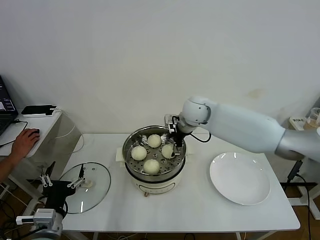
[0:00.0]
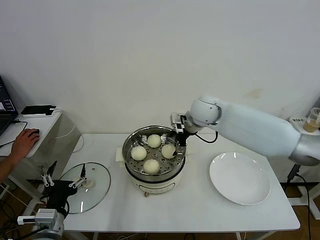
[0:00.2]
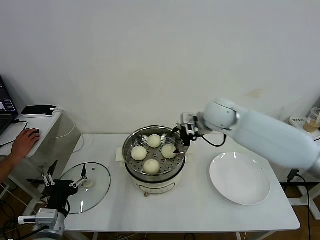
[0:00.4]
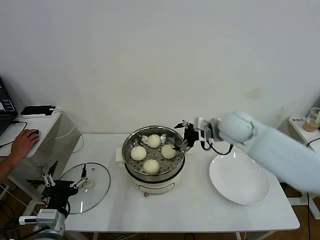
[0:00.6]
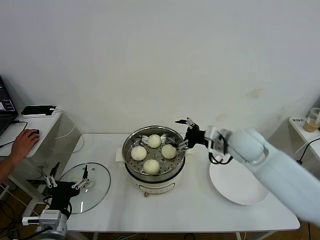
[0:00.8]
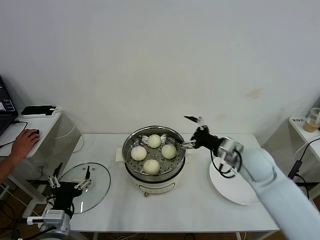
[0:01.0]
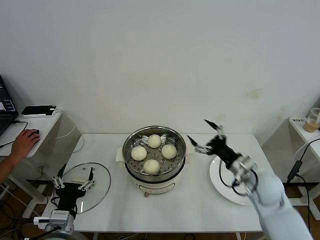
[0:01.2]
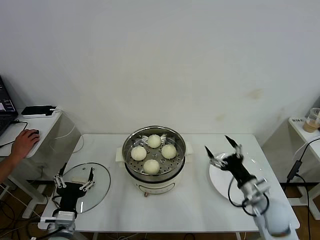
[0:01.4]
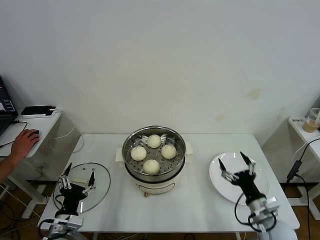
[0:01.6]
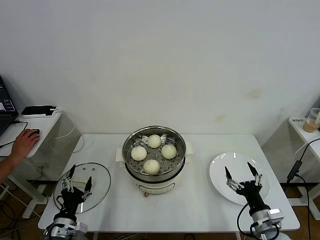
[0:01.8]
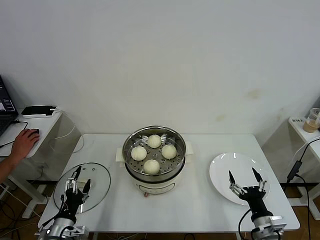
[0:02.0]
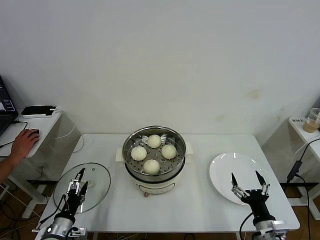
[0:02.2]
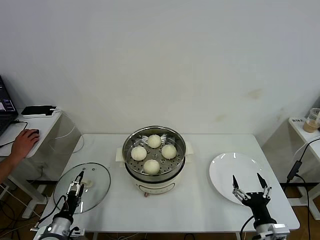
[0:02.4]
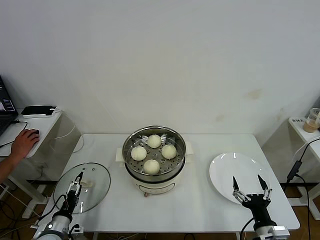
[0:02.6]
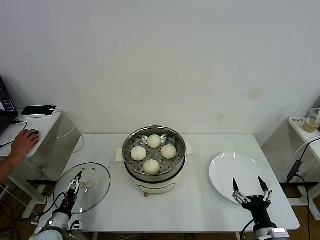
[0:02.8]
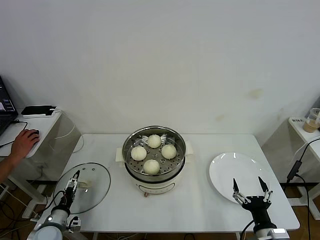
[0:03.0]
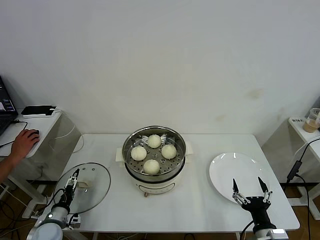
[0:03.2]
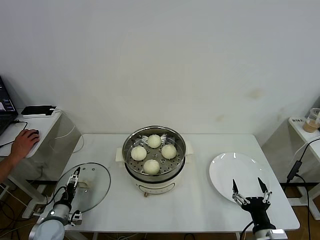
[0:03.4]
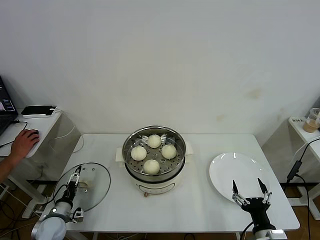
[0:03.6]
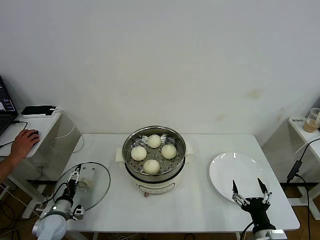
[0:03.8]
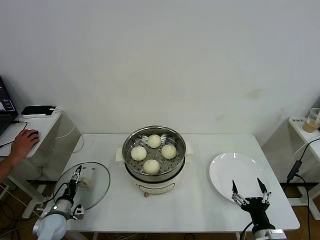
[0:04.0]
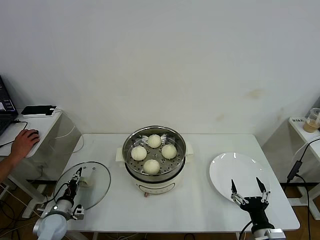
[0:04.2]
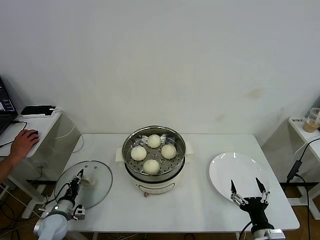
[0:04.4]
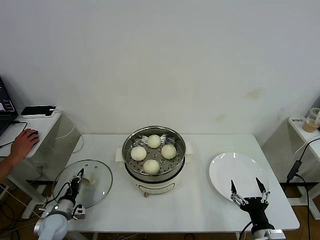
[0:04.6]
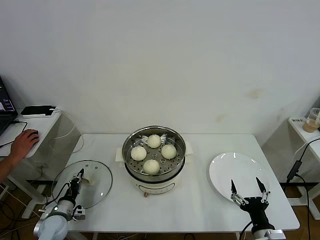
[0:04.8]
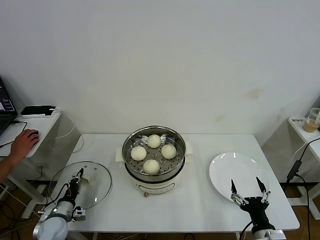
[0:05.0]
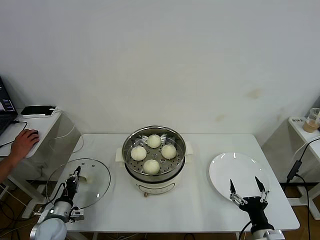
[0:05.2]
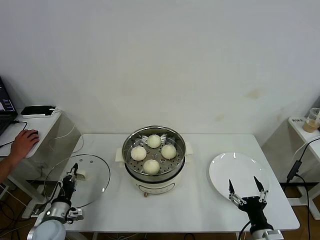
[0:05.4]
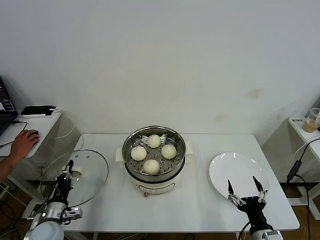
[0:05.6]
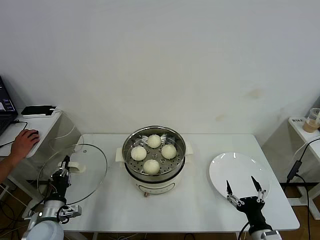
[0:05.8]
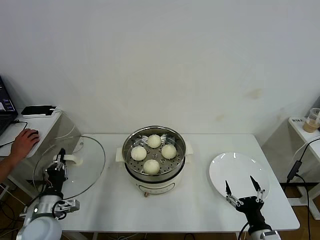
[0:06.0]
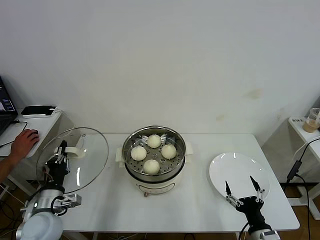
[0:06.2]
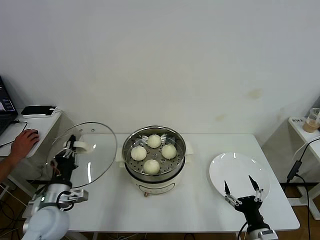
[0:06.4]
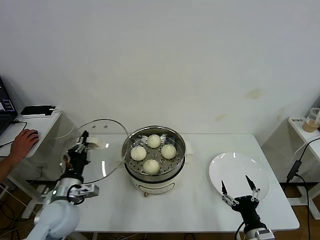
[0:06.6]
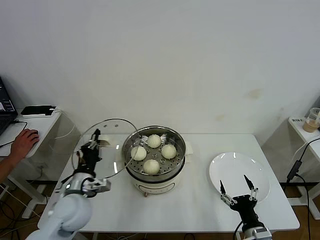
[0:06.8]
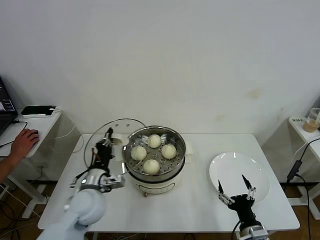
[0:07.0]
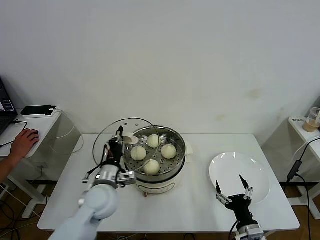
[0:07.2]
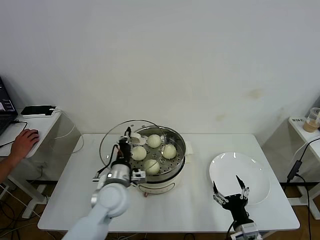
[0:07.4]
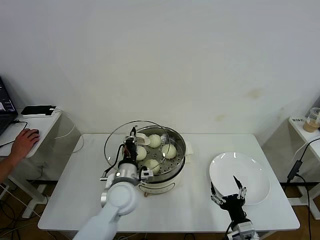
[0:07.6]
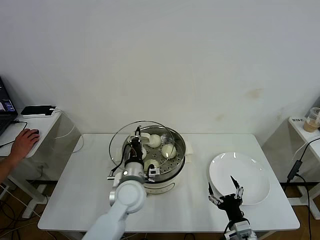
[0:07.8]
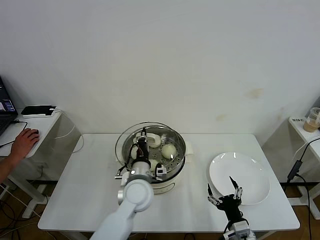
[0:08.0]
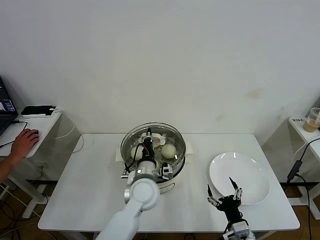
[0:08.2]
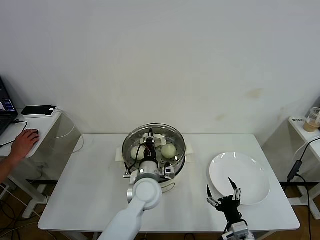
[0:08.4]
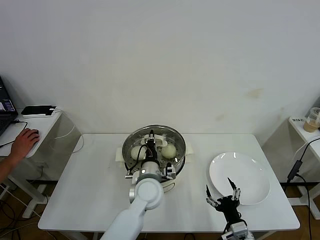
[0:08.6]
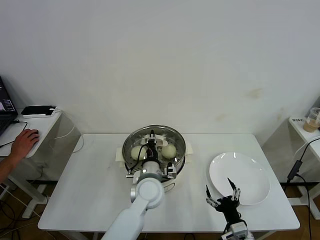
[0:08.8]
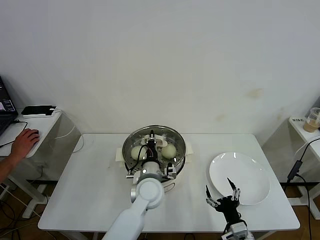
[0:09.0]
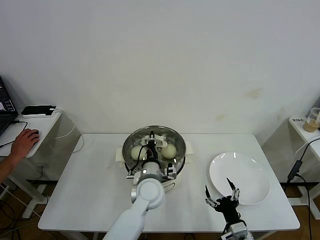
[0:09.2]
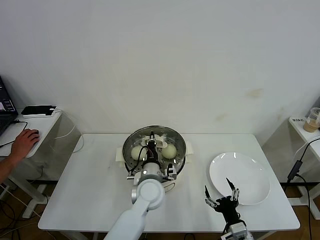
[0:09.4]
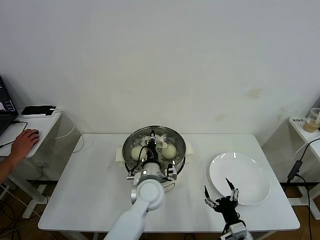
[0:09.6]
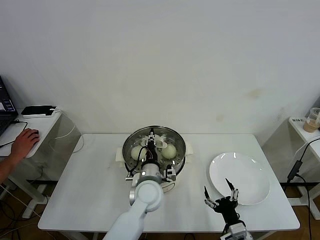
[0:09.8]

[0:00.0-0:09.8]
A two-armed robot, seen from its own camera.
Task of the whole recording: take steamed baozi put them in steamer then cover it.
Step, 0:00.0 to 0:04.0: Grasp the pot lid with left gripper.
Step, 0:04.2 to 0:09.8: Place the pot lid on the steamer with left gripper.
0:00.0 to 0:01.4: The right gripper is displaced backward, to the right and downward by approximately 40 cm; the left gripper ends up roughly 5 cm from where it was.
0:01.4 to 0:02.8: The left gripper is displaced downward and to the left by some 15 cm. The right gripper heads backward, covering roughly 15 cm.
0:02.8 to 0:04.2: The left gripper is displaced forward by approximately 5 cm, and closes its fingers.
0:04.2 to 0:05.6: The left gripper heads upward, covering some 5 cm, and closes.
0:05.6 to 0:07.0: The left gripper moves to the right and upward, approximately 20 cm.
0:07.0 to 0:08.4: The left gripper heads to the right, covering roughly 15 cm.
0:08.4 to 0:09.8: The left gripper opens its fingers.

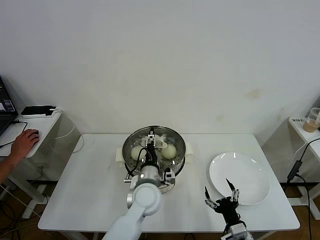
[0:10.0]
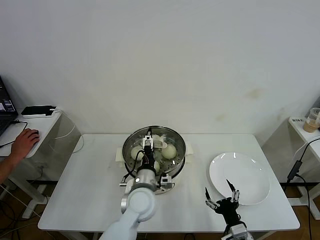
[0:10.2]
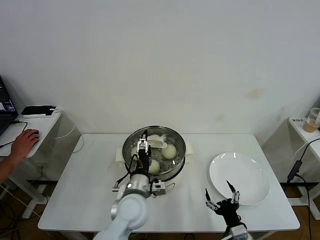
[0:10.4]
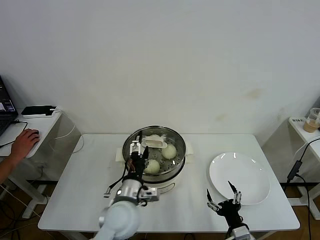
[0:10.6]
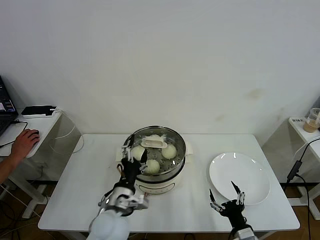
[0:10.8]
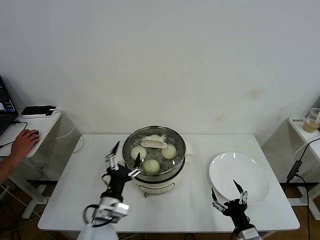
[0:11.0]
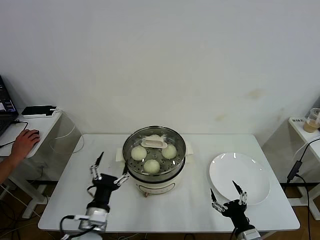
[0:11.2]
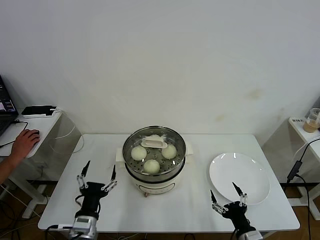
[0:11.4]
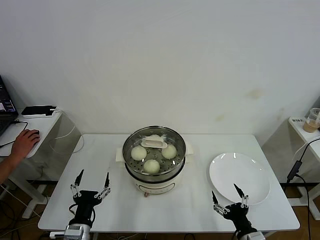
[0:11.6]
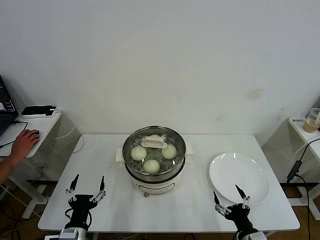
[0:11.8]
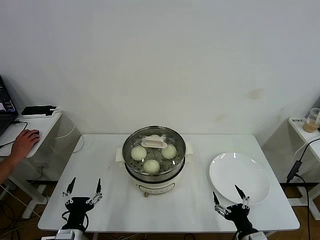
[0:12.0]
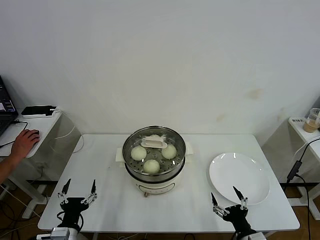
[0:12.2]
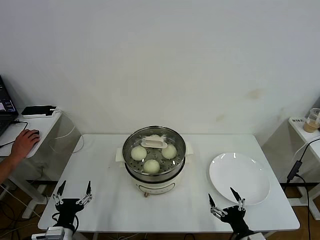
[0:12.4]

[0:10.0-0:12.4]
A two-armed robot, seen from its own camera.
Task of the whole recording: take steamed baozi put them in steamer then cover it.
0:10.0 to 0:11.2: The left gripper shifts roughly 20 cm to the left and backward, and opens its fingers.
0:11.2 to 0:12.4: The left gripper shifts some 15 cm to the left and downward.

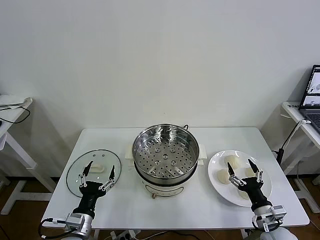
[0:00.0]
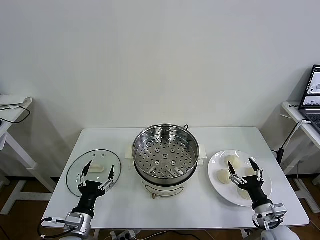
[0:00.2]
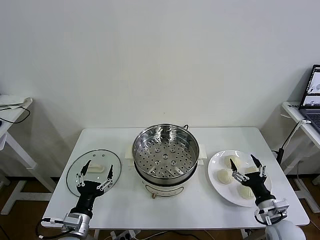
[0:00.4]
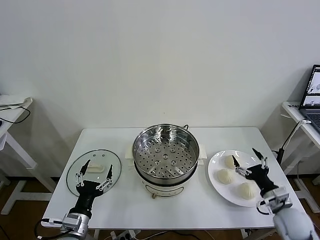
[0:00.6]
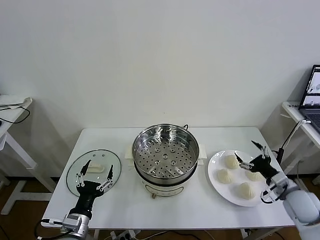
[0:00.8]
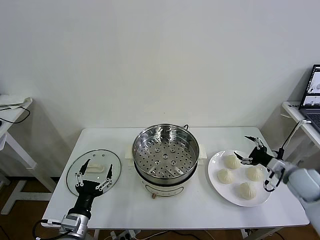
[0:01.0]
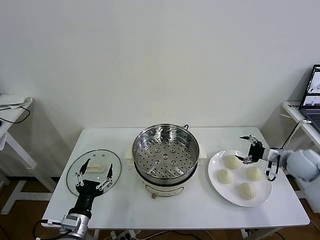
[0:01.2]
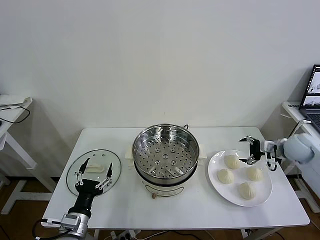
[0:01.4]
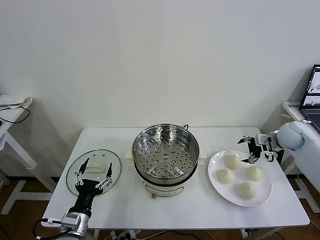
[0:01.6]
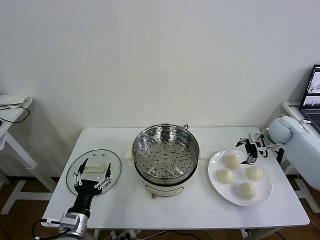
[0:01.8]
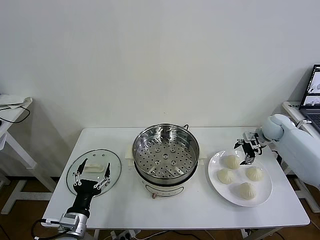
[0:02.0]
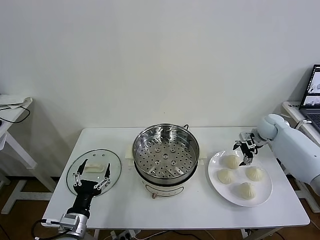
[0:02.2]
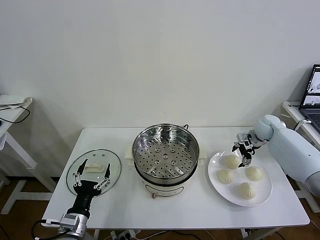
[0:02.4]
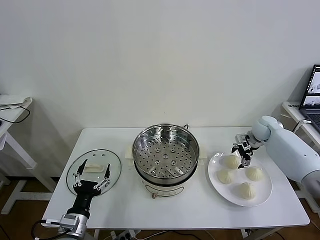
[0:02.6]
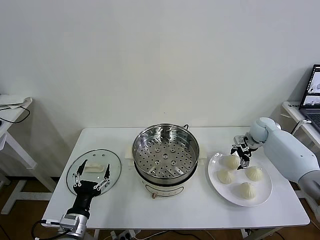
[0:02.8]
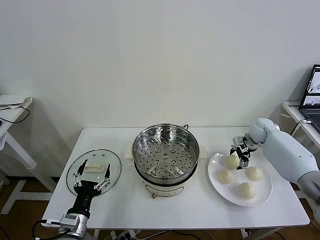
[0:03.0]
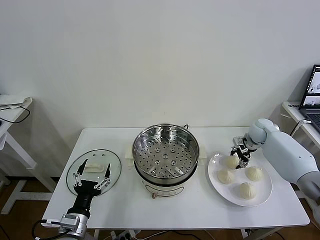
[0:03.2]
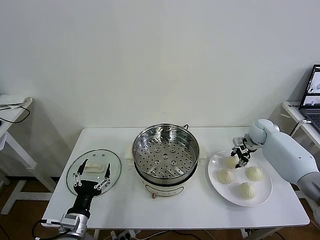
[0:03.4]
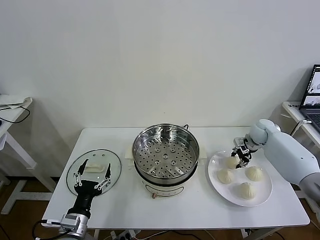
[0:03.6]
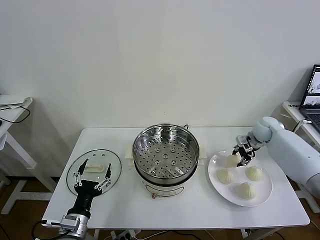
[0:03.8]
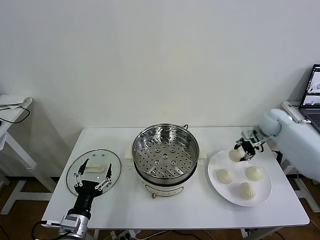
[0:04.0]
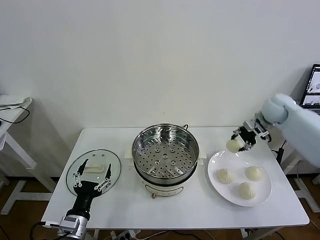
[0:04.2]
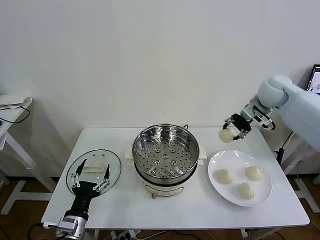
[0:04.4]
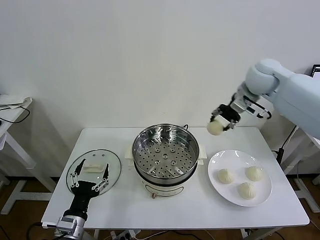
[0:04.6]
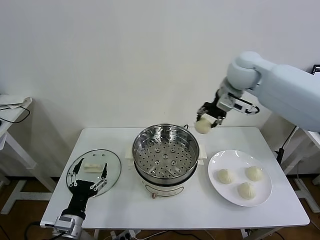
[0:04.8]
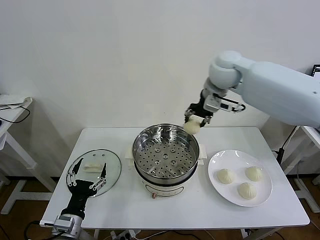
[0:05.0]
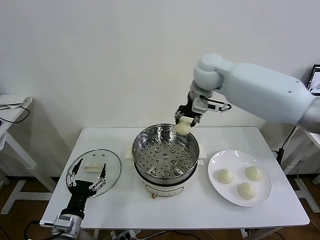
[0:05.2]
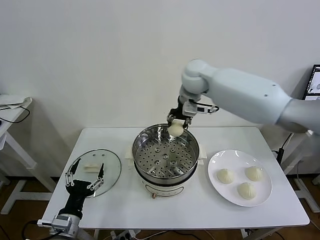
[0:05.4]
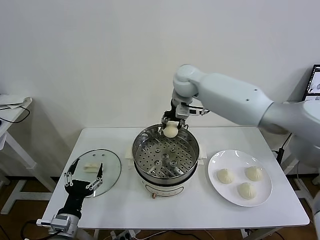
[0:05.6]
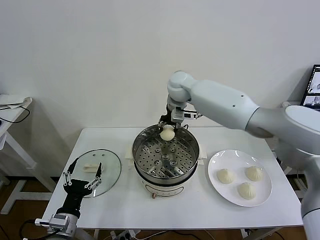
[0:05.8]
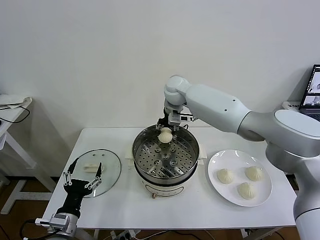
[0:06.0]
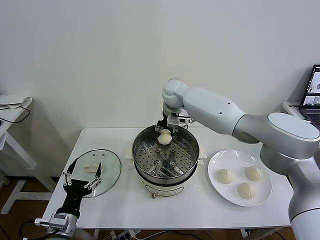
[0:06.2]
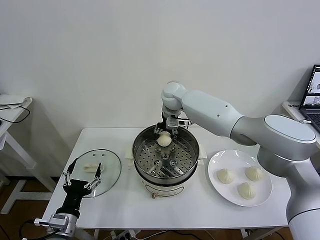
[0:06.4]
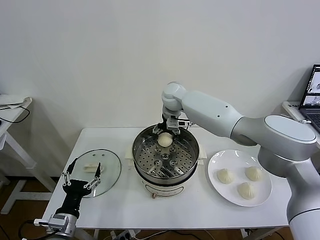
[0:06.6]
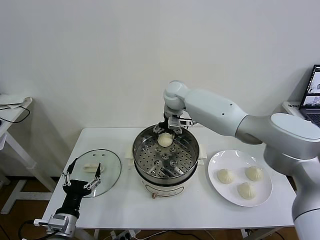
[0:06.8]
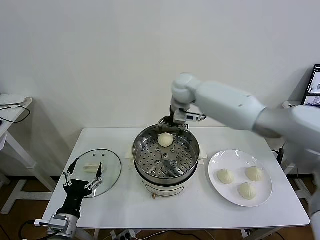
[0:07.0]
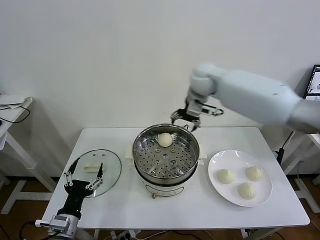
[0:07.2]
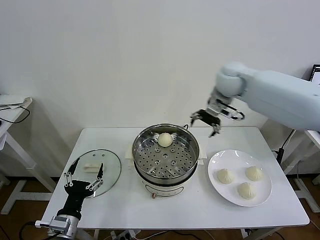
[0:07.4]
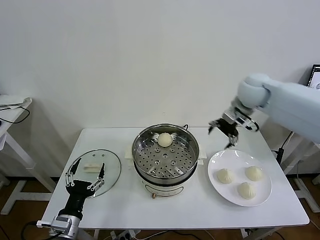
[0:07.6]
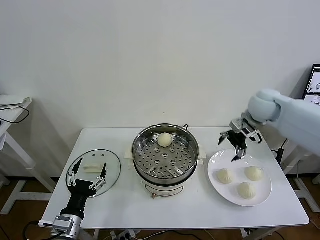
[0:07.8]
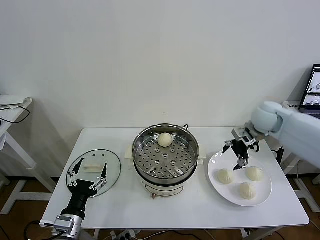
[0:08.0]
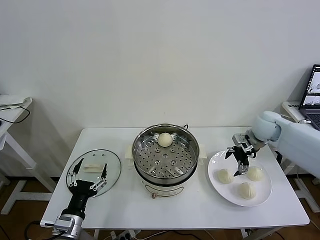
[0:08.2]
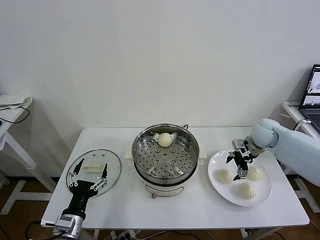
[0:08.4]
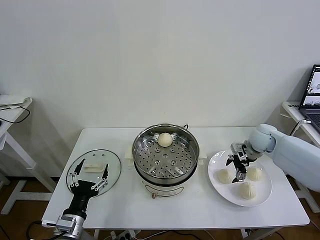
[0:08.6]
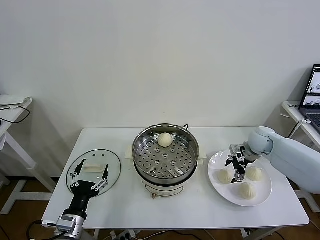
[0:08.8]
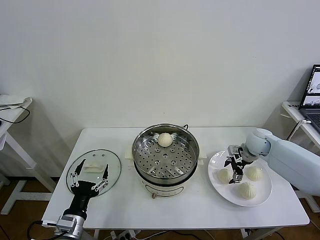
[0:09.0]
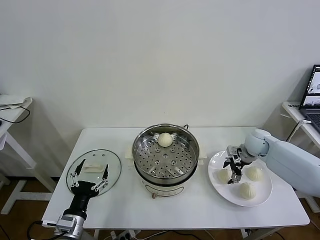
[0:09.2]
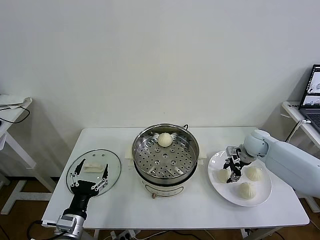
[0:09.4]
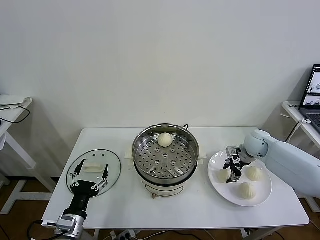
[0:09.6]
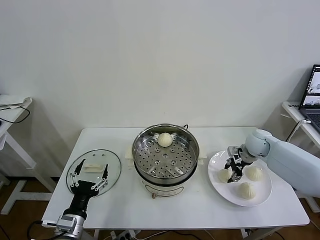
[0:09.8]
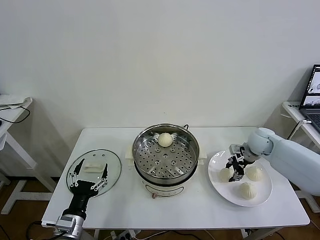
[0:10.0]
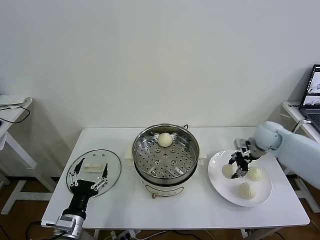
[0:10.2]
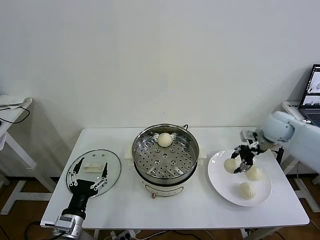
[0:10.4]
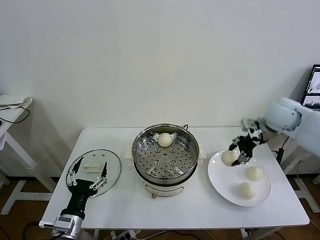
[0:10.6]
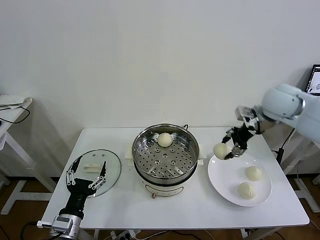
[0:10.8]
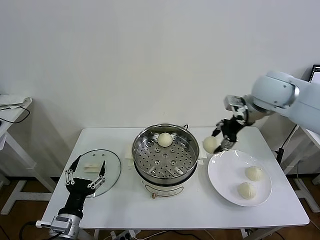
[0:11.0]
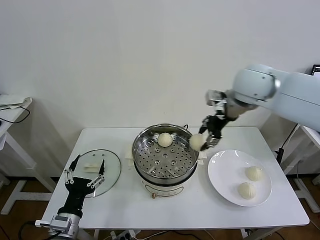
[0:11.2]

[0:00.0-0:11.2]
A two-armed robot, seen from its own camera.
Task of the whole recording: take steamed baozi put them in steamer then cover it.
Step, 0:00.0 to 0:03.2: Grasp the baozi in the plate with right gripper.
Step, 0:03.6 to 0:06.6: Place the baozi on the steamer with right gripper.
Step, 0:06.8 to 0:09.6: Grasp the baozi in the plate with right gripper.
0:01.6 to 0:03.2: The right gripper shifts approximately 10 cm downward and forward, and closes up.
0:03.2 to 0:04.8: The right gripper goes about 35 cm upward and to the left.
0:04.8 to 0:06.4: The right gripper shifts approximately 20 cm to the left, downward and forward, and opens its fingers.
0:06.4 to 0:08.0: The right gripper travels to the right by approximately 30 cm, and opens.
0:08.0 to 0:09.6: The right gripper is displaced downward by about 10 cm, and closes up.
0:09.6 to 0:11.2: The right gripper travels upward and to the left by roughly 30 cm.
